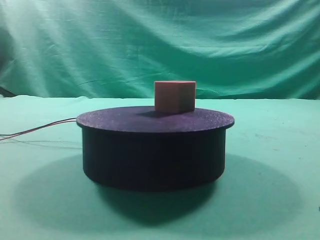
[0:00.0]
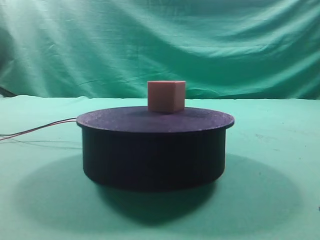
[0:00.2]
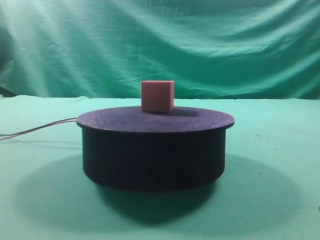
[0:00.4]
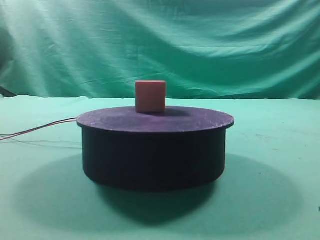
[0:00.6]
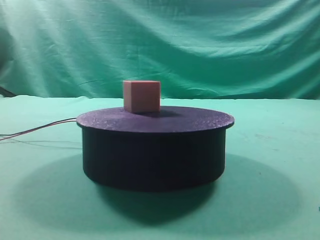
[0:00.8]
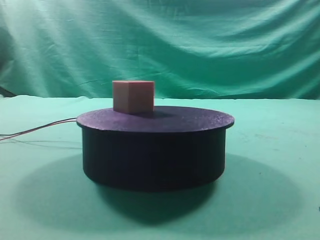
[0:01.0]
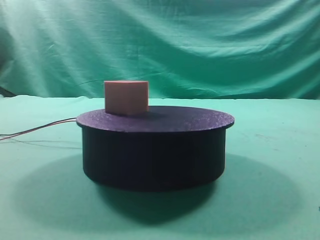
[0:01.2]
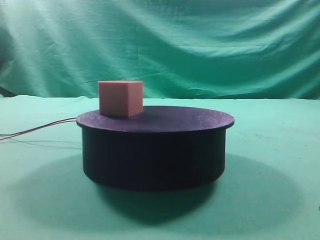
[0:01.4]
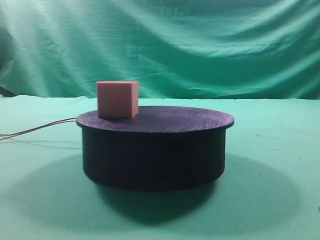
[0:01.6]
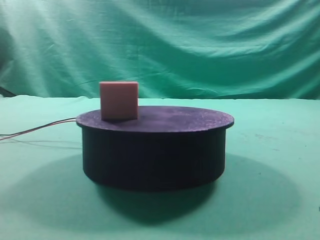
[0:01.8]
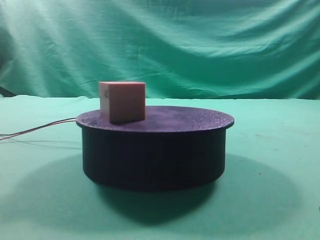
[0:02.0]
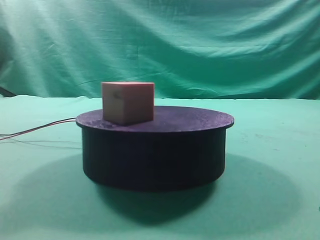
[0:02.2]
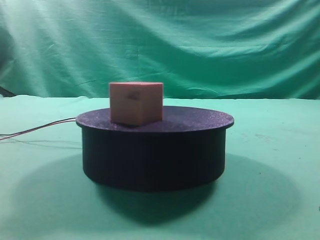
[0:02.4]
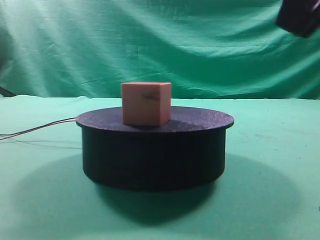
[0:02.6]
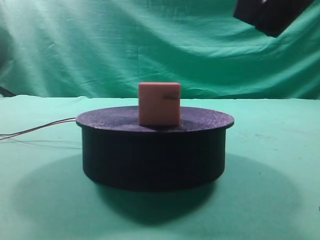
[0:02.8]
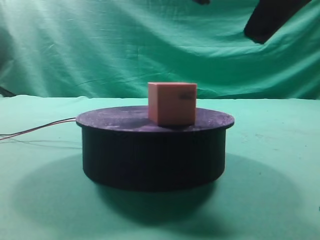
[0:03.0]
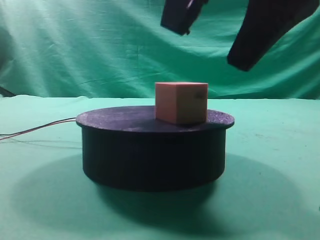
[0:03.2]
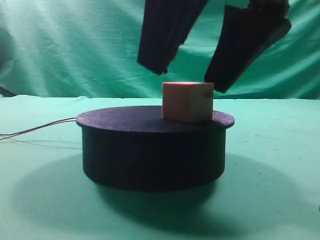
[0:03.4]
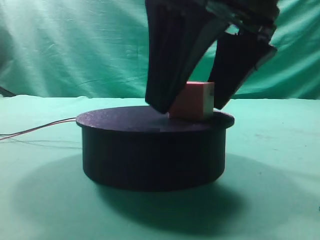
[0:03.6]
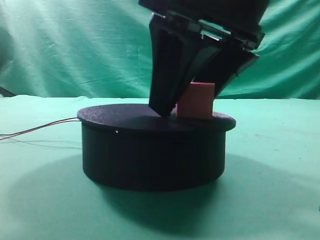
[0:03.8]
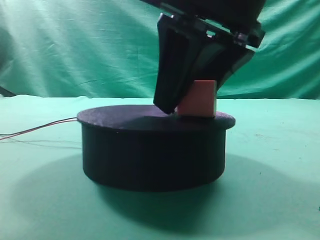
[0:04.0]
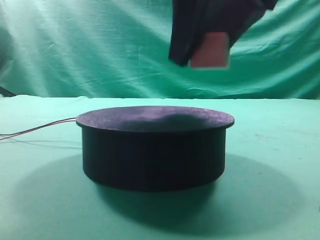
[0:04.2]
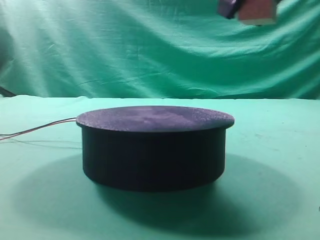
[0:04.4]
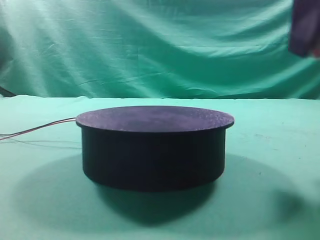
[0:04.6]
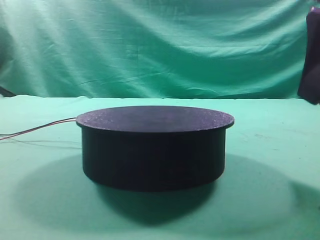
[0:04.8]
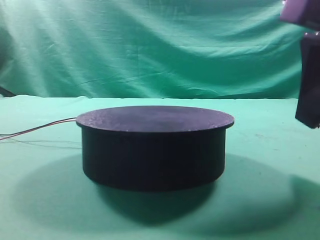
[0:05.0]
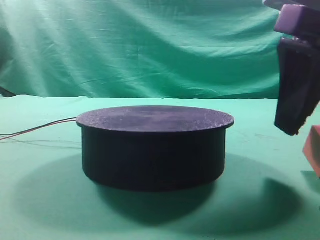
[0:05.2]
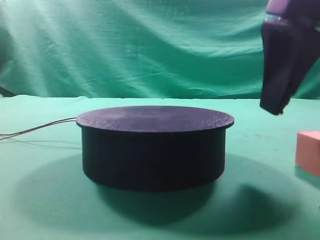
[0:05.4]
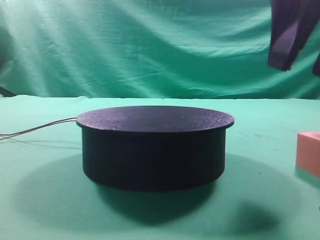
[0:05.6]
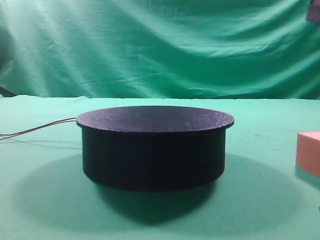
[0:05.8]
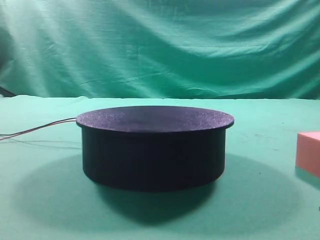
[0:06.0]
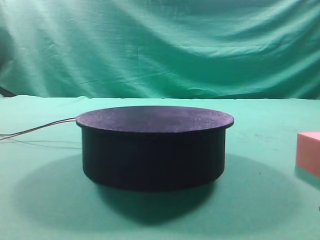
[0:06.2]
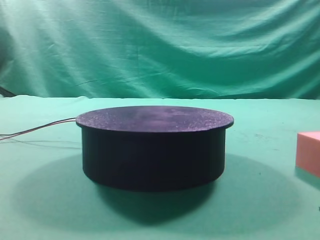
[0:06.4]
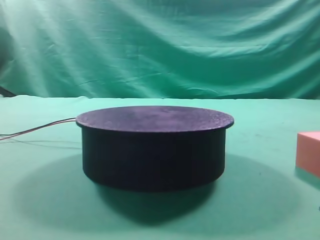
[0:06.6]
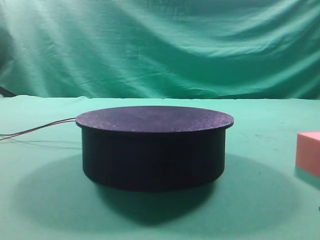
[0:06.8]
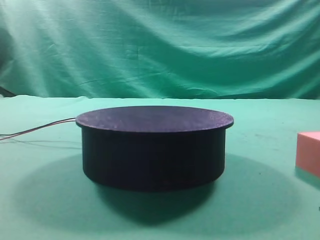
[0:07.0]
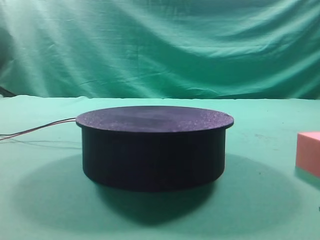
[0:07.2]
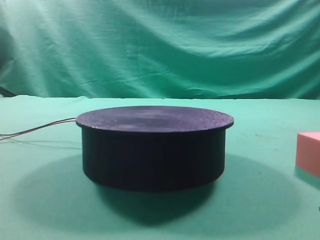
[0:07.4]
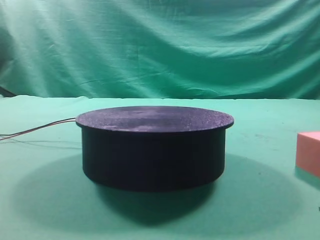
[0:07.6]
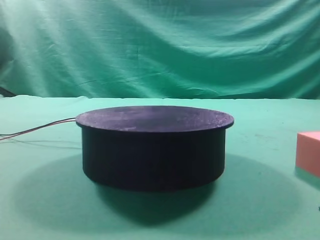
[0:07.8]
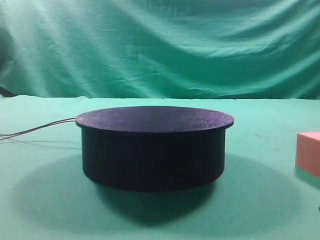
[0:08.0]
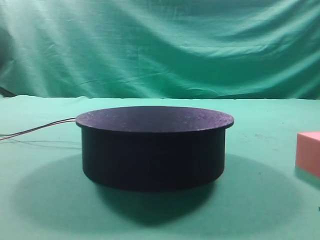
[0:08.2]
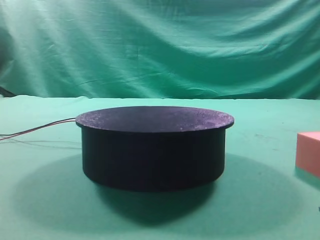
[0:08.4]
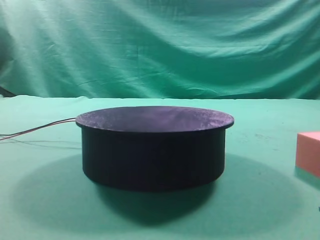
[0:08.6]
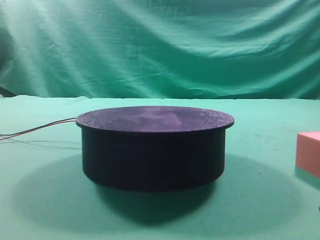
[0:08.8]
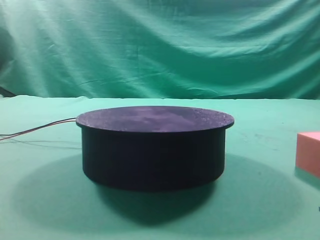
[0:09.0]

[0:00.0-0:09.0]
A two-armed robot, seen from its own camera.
Task of the whole recording: grasp the rotating cube-shaped block on the turntable and place it on the table.
Step, 0:00.0 to 0:04.0: Grasp the rotating cube-shaped block on the turntable.
Step, 0:04.2 to 0:05.4: Place the cube on the desk.

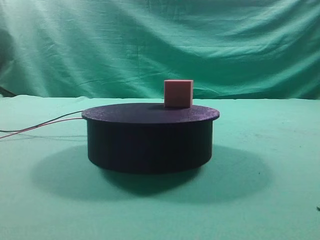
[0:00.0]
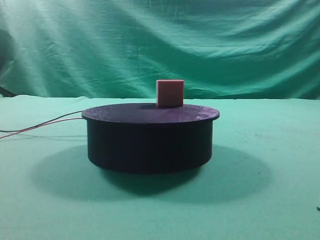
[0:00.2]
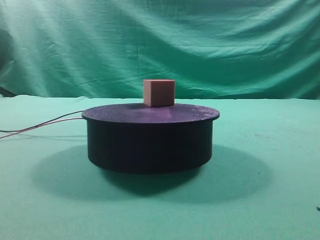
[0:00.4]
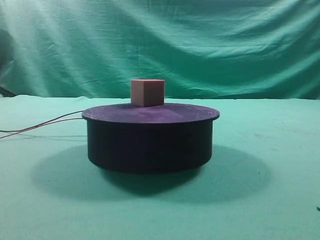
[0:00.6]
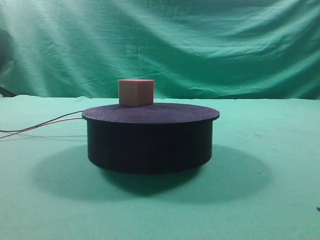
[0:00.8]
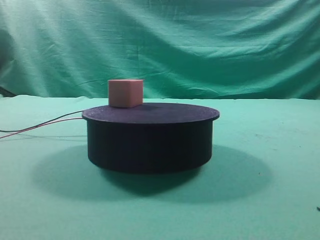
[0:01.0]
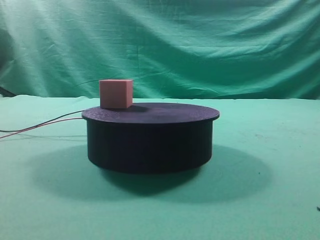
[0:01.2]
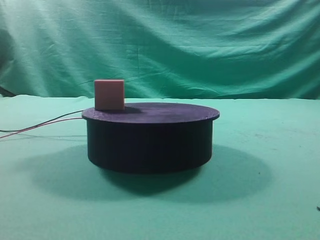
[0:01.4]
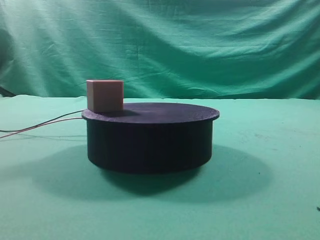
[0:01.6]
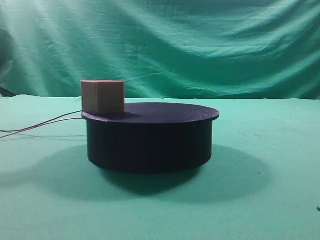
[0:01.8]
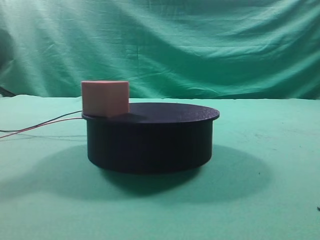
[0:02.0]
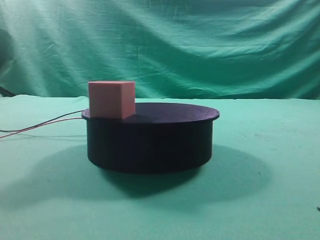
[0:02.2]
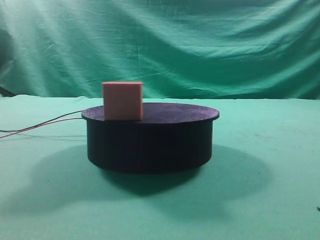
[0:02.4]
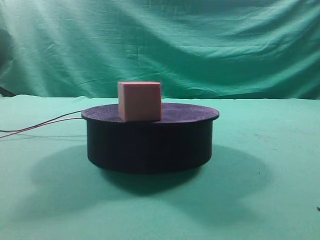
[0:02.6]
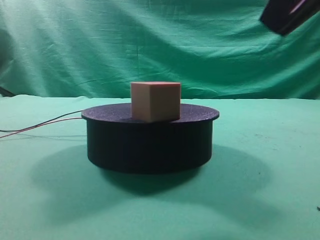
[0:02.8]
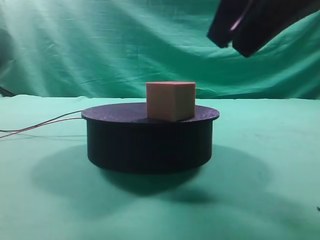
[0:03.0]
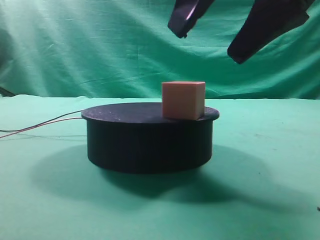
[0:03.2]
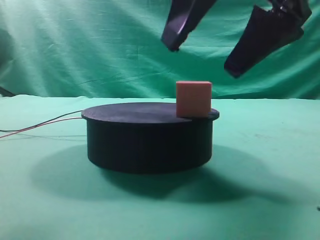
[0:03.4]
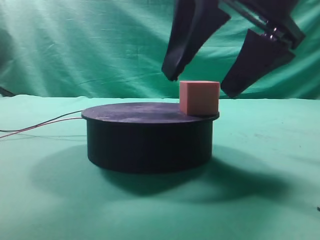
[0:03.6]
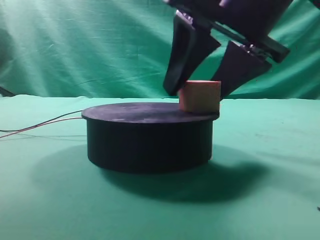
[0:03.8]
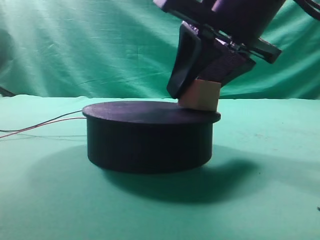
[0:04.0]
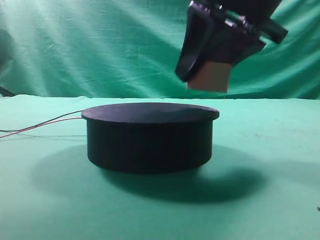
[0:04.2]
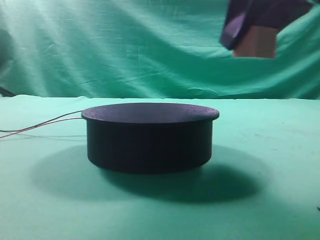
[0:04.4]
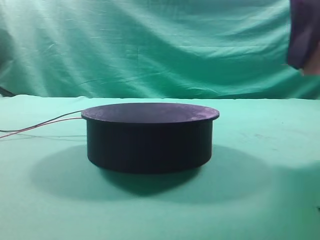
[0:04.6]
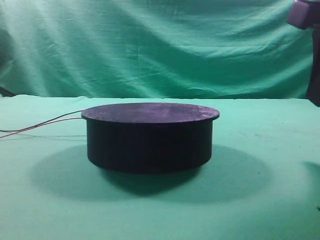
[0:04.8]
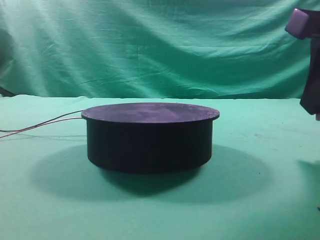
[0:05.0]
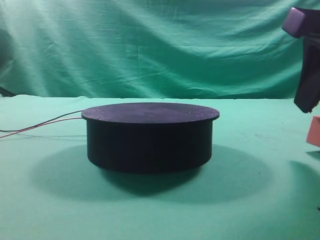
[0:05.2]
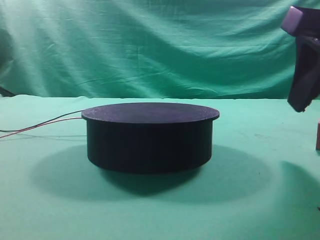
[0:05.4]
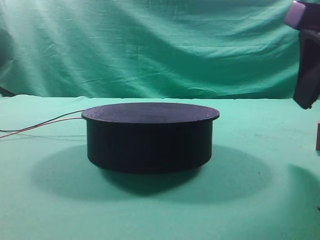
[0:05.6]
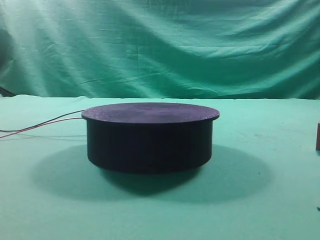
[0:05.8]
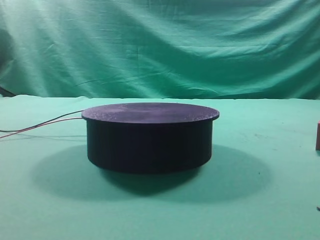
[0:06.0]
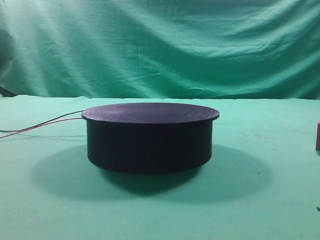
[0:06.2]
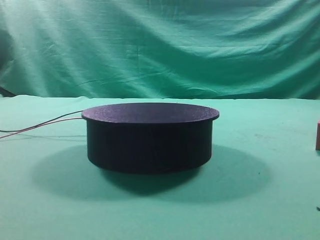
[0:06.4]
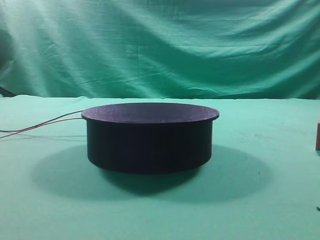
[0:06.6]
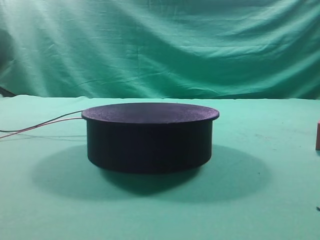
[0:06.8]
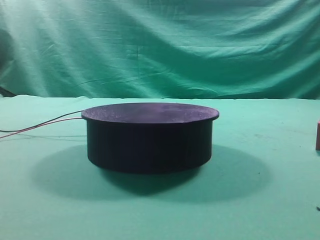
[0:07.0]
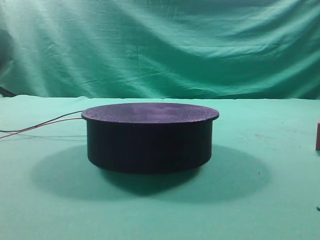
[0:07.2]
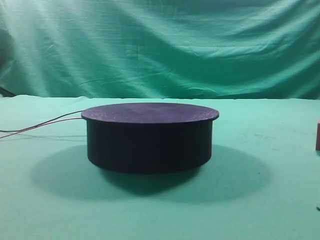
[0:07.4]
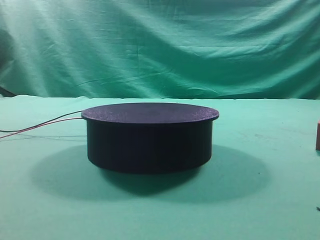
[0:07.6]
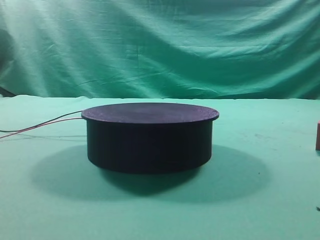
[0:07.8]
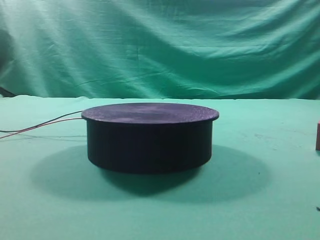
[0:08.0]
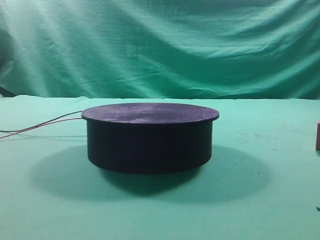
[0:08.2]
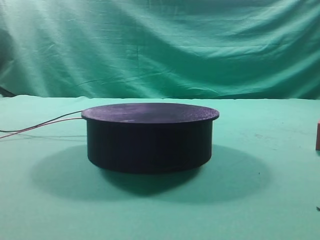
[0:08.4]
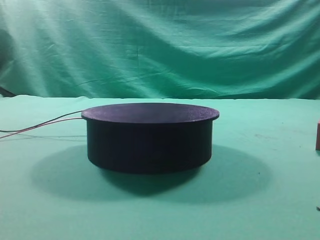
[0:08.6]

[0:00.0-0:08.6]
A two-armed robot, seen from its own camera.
Task of the whole recording: grasp the rotating cube-shaped block on the turntable and place it on the table.
Step, 0:00.0 to 0:04.2: Grasp the rotating cube-shaped block on the turntable.
Step, 0:04.4 to 0:05.6: Place the cube on the desk.
